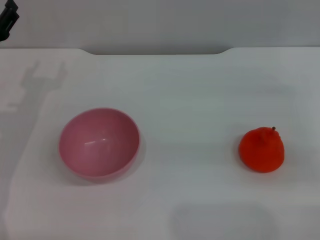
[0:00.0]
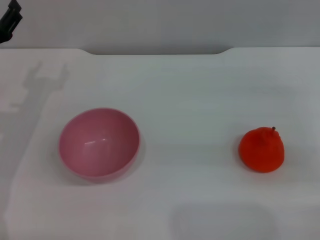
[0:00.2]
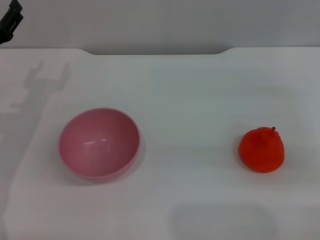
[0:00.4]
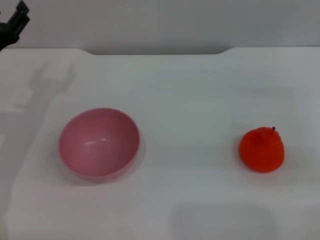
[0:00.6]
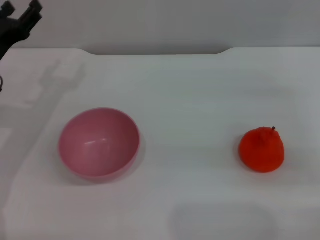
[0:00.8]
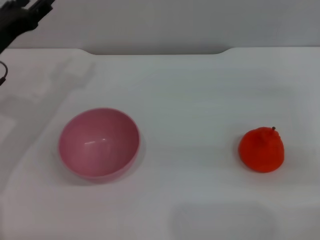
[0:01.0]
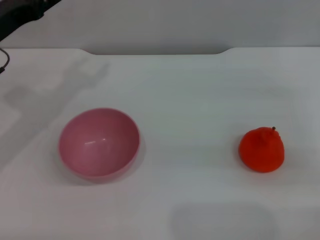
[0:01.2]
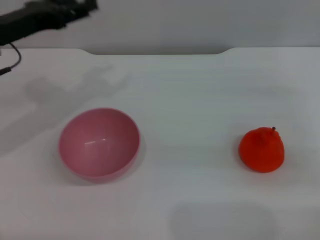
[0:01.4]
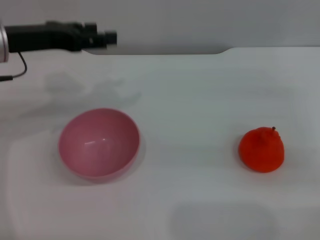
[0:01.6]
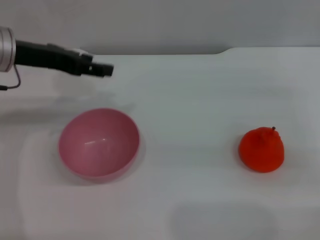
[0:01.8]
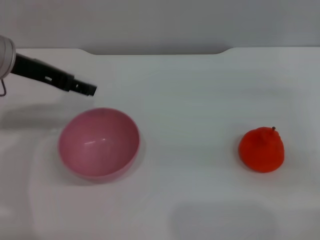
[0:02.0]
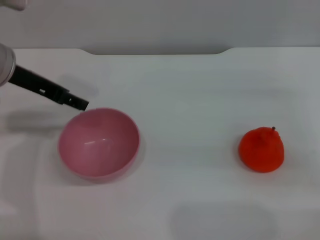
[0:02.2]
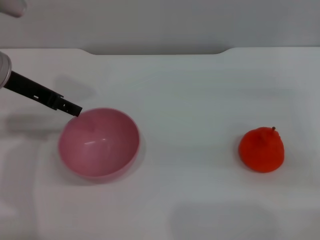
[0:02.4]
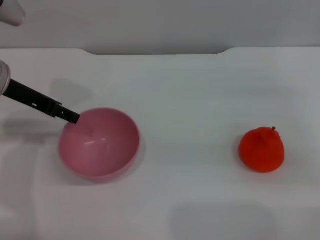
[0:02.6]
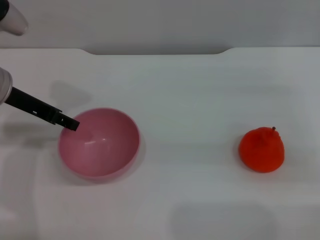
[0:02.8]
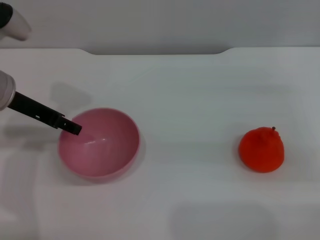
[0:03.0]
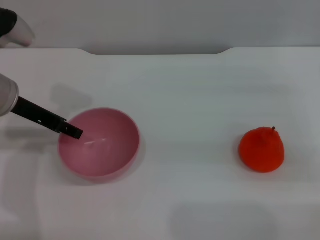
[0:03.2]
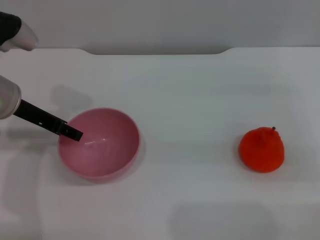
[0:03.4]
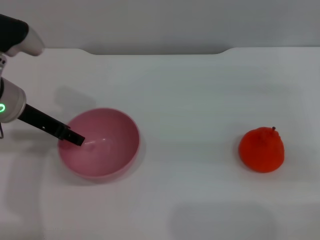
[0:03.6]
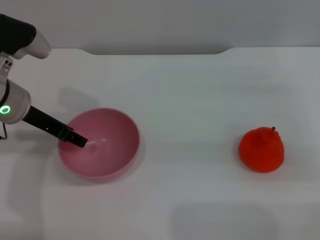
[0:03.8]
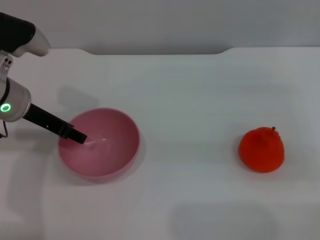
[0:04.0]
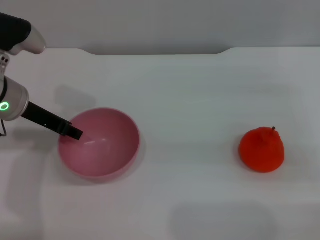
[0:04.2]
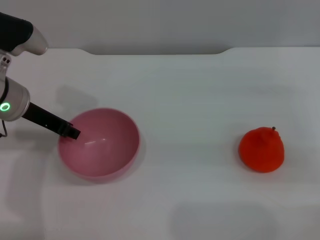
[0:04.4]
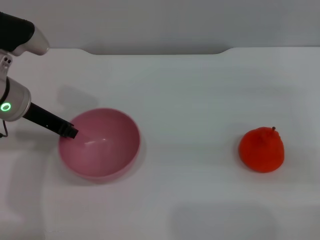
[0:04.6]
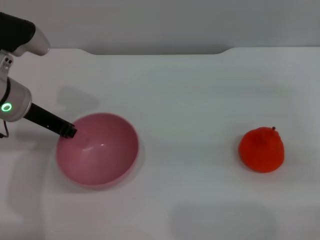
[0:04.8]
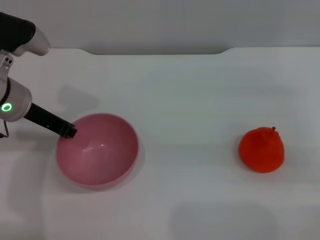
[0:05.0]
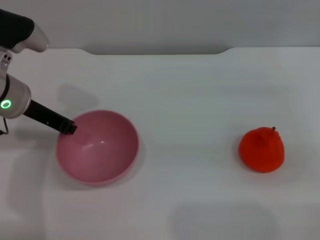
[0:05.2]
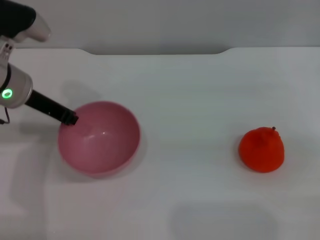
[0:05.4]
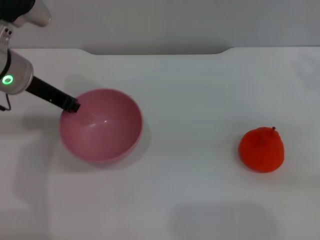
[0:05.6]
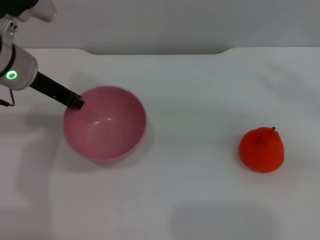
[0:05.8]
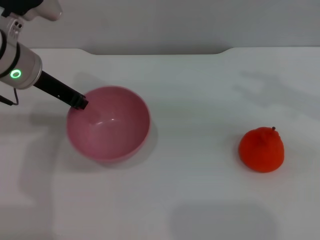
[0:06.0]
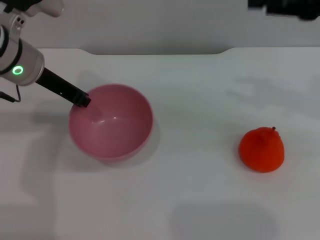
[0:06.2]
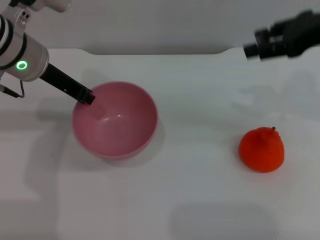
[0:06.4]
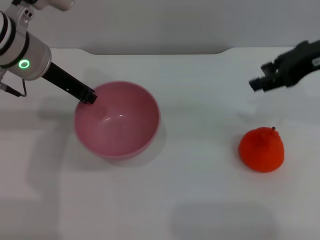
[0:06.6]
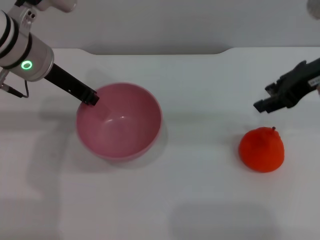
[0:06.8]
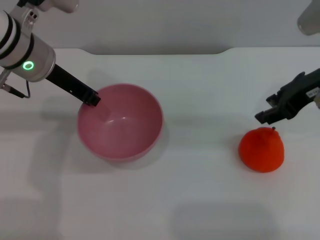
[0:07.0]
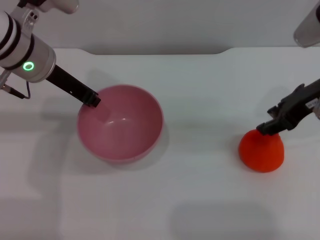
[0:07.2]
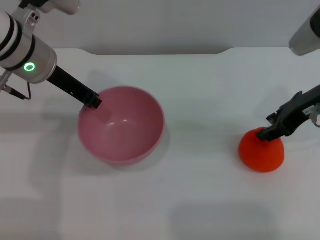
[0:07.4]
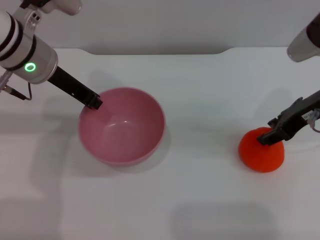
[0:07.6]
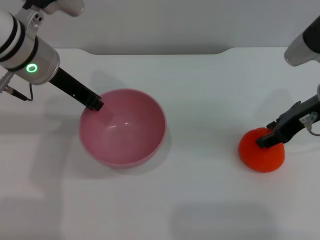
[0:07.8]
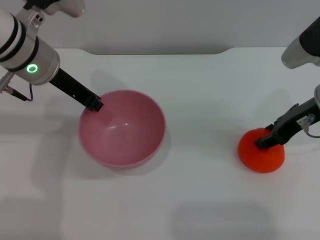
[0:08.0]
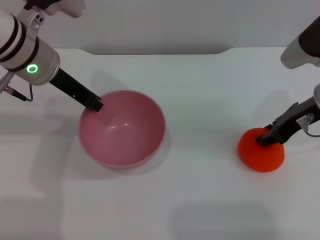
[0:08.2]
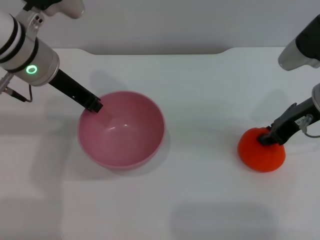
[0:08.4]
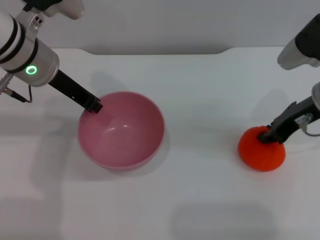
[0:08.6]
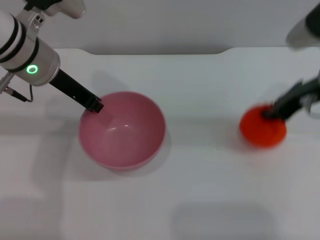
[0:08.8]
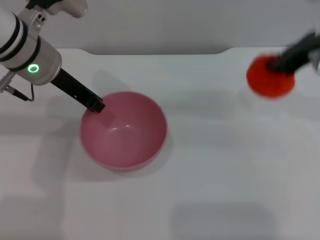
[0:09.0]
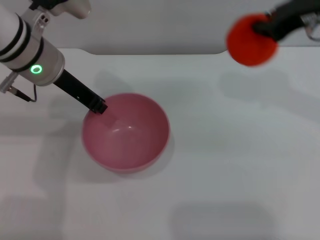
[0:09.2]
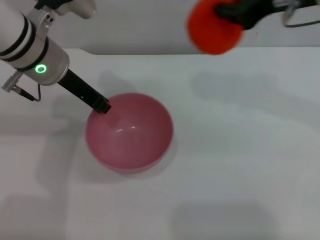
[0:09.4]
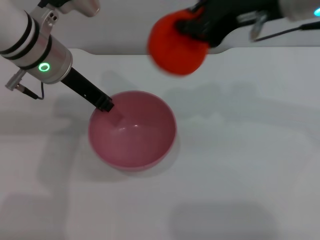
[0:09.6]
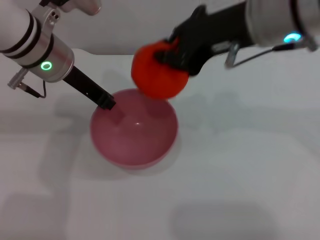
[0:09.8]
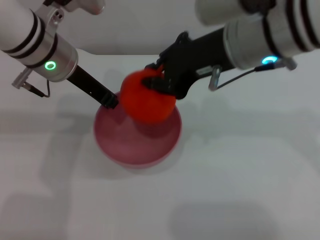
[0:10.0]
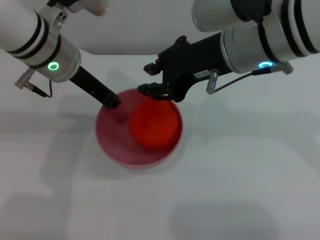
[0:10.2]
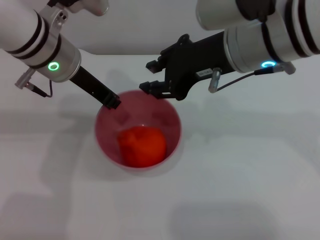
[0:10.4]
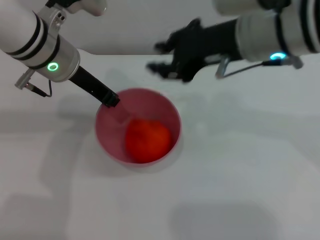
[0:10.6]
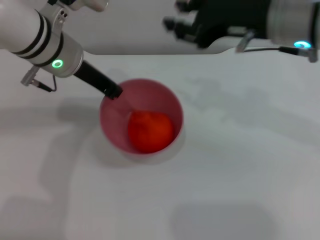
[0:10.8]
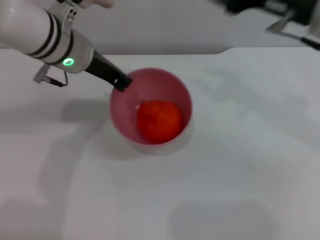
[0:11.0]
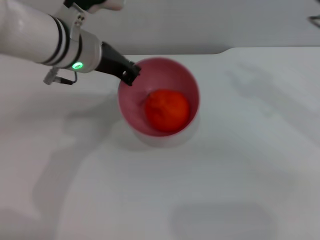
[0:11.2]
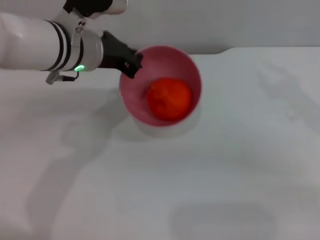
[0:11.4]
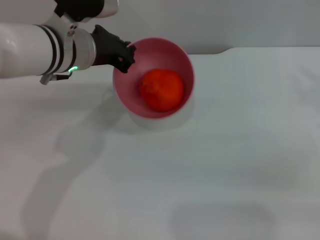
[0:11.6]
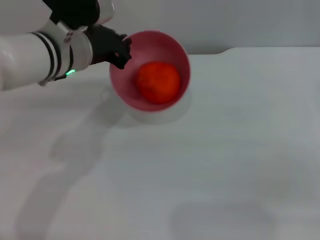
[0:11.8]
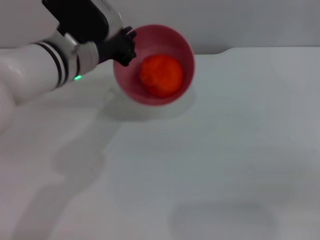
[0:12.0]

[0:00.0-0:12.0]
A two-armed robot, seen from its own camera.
Task of the whole recording: put the orange into the pink bowl and pour it out repeatedly.
Step, 0:00.0 to 0:06.6: Pick up the bowl with the left gripper.
Step, 0:06.8 to 0:08.8: Pick up the orange with the right gripper.
Step, 0:09.0 to 0:11.2: Place the orange into the bowl.
0:00.0 to 0:01.6: The left gripper shifts roughly 10 cm upward.
0:03.0 to 0:04.4: The grippers stay close to where they were, moving slightly.
0:04.4 to 0:06.0: The right gripper shifts approximately 15 cm upward, while the left gripper closes its fingers.
0:06.0 to 0:07.6: The right gripper travels downward and to the left by about 10 cm.
0:07.6 to 0:09.0: The right gripper shifts some 5 cm upward, and closes.
0:09.0 to 0:10.4: The right gripper moves to the left, some 15 cm.
0:10.4 to 0:12.0: The right gripper shifts approximately 25 cm to the right.

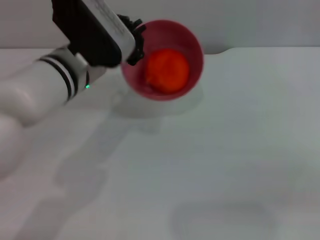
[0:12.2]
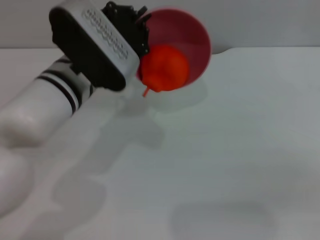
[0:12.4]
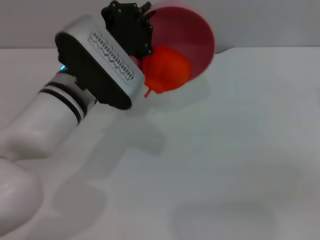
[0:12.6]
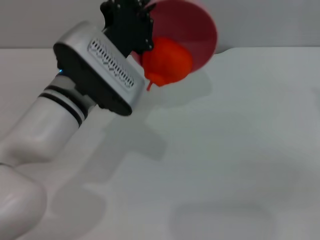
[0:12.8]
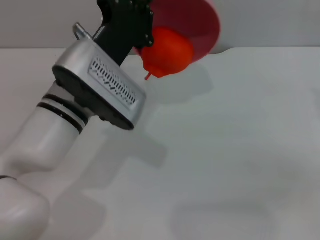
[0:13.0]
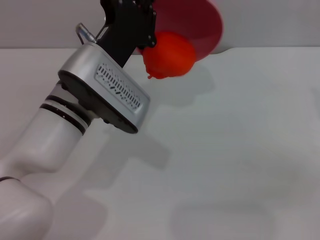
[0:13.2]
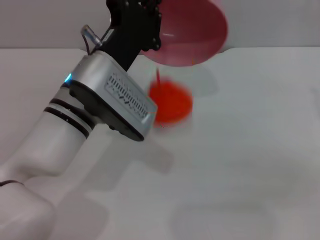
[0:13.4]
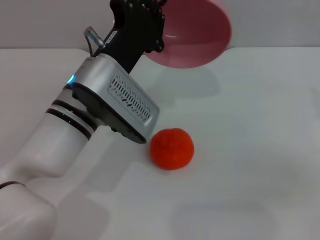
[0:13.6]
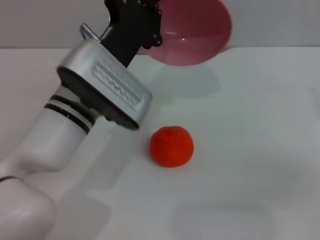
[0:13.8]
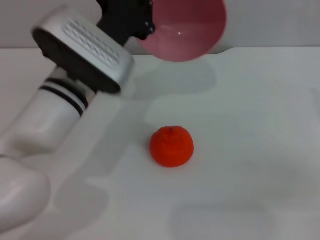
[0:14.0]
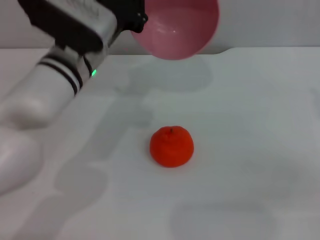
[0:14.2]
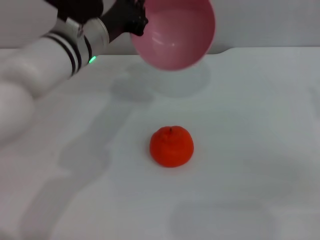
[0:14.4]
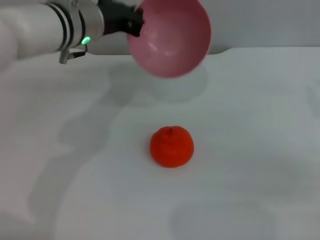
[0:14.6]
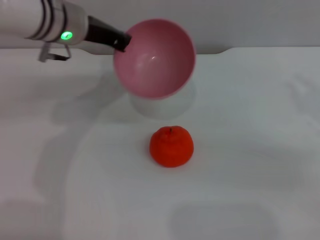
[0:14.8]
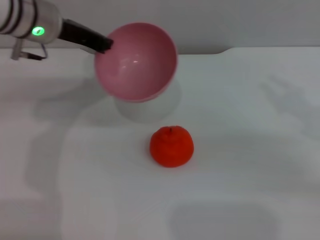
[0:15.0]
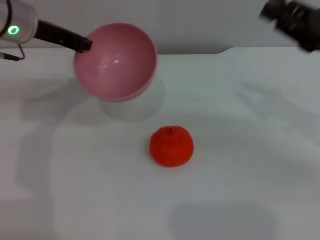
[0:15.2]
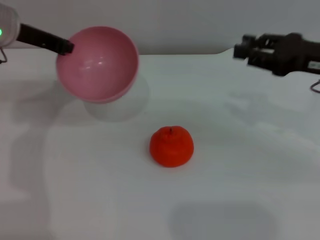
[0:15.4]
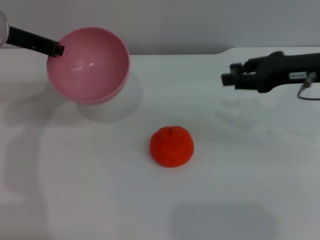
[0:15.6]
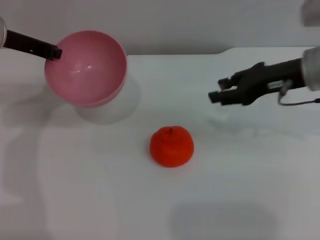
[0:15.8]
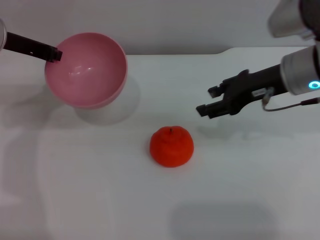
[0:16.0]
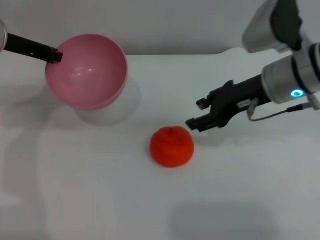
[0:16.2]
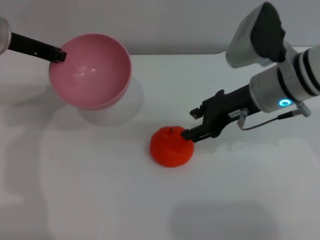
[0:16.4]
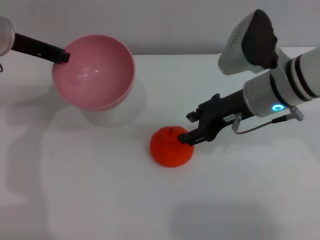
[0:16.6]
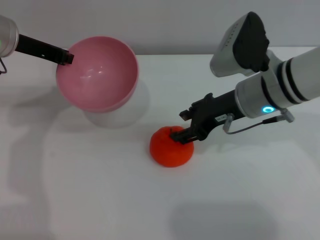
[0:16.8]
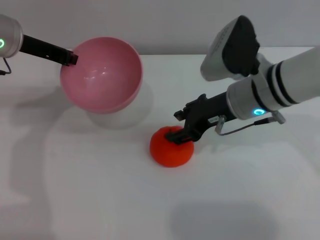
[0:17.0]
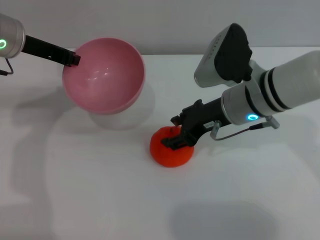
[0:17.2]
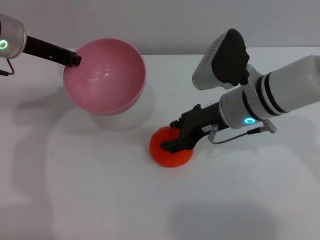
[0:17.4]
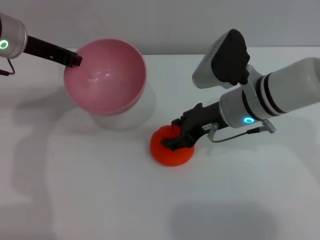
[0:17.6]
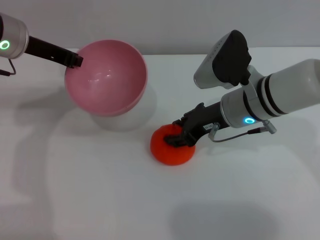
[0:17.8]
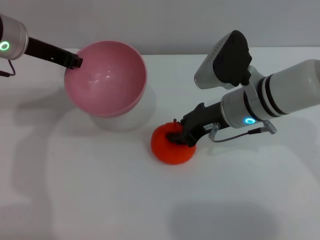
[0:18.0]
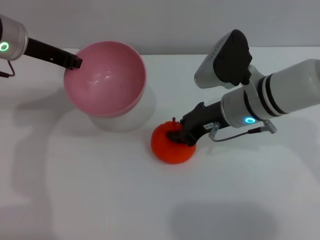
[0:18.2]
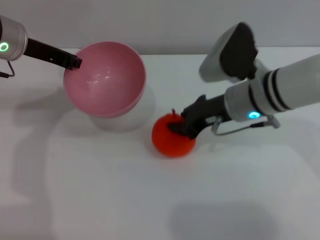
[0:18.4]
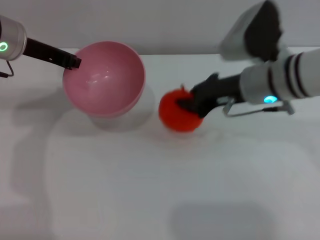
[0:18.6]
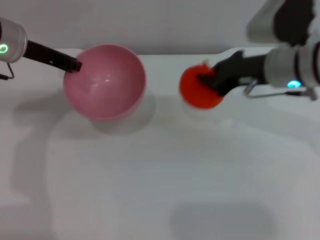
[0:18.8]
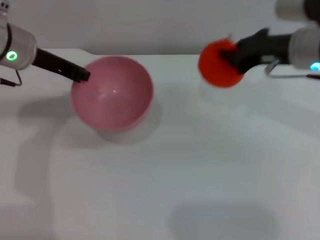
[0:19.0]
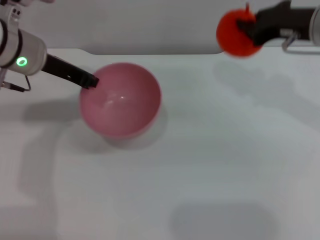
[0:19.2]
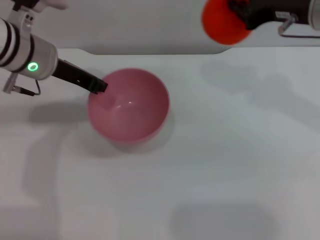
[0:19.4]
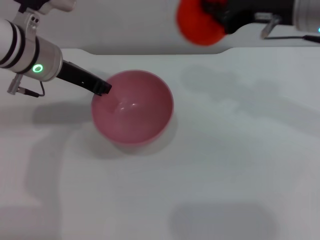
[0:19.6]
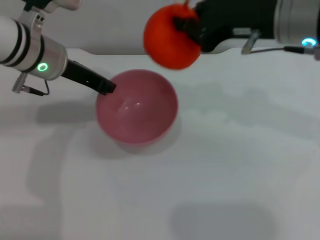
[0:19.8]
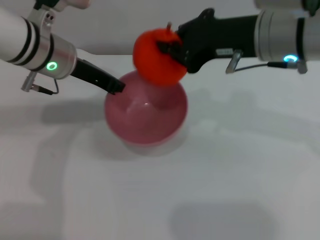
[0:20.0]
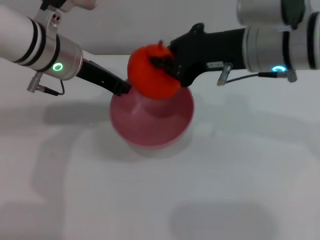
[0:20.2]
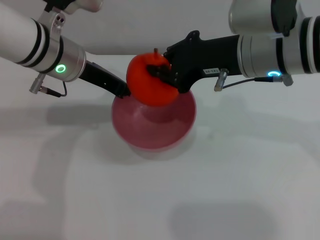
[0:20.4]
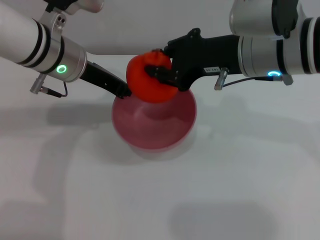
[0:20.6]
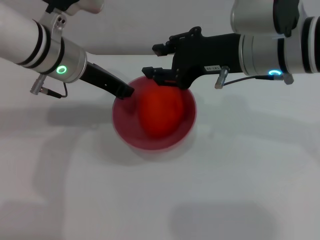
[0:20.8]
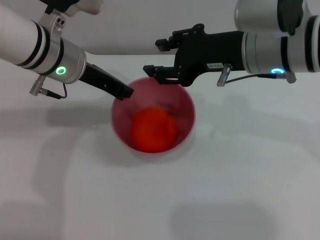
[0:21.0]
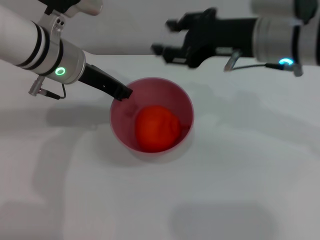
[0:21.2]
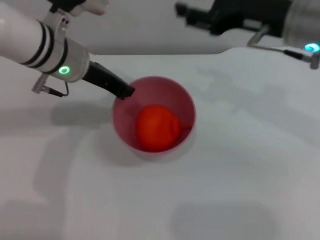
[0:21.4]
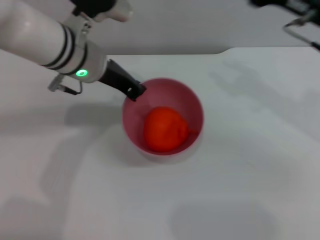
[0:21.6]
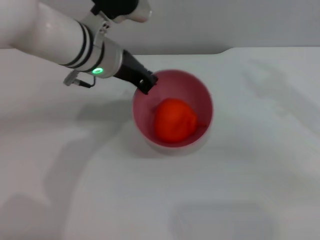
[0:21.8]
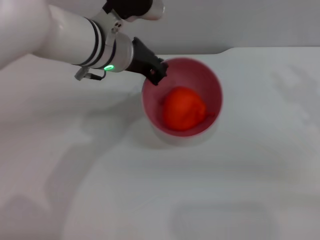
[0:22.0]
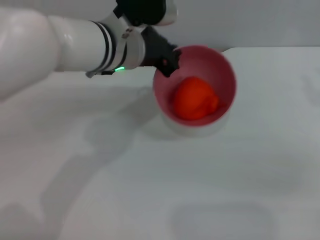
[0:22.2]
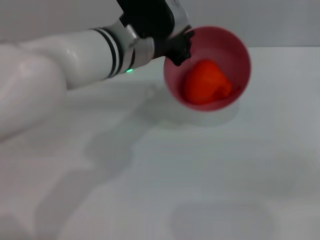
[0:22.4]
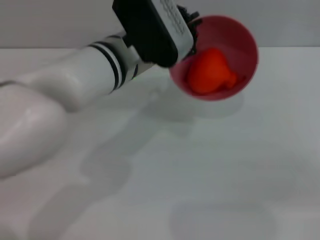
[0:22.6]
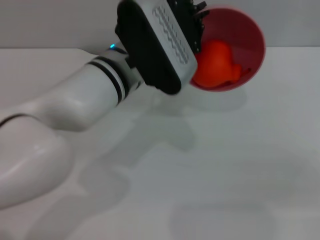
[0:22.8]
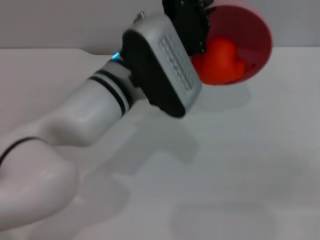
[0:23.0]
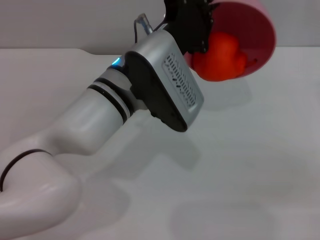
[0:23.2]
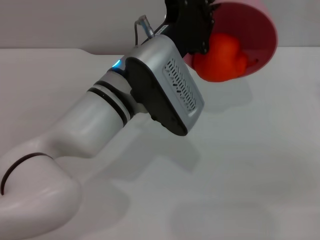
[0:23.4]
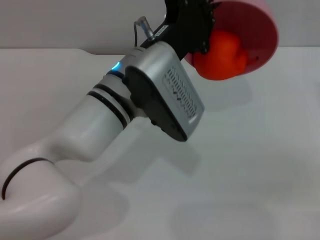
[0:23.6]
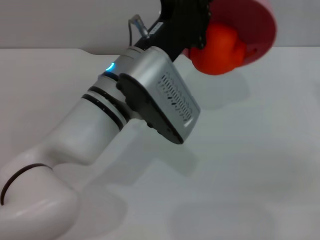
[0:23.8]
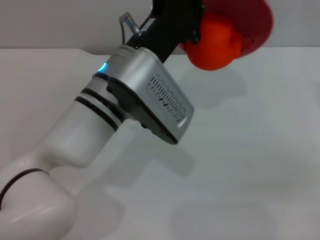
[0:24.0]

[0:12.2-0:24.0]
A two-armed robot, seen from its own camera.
Task of the whole recording: put the orange into the pink bowl and pour it out repeatedly.
Step, 0:12.2 to 0:14.0: Pour the orange out of the bowl.
Step, 0:14.4 to 0:19.0: Pick up the orange with the right gripper.
Step, 0:19.2 to 0:21.2: Place the orange into the bowl.
0:12.2 to 0:13.6: The left gripper changes place by some 5 cm.
0:13.6 to 0:15.2: The left gripper goes approximately 20 cm forward, to the left and upward. Meanwhile the right gripper heads forward, covering approximately 5 cm.
0:15.2 to 0:16.6: The right gripper travels to the left by some 15 cm, and opens up.
0:16.6 to 0:18.2: The right gripper closes its fingers.
0:18.2 to 0:19.6: The right gripper is displaced upward by some 15 cm, and closes its fingers.
0:19.6 to 0:21.0: The right gripper ends up about 5 cm from where it was, and opens its fingers.
0:21.0 to 0:22.6: The left gripper is displaced to the right by roughly 10 cm. The right gripper is displaced to the right by some 20 cm.
0:22.6 to 0:24.0: The left gripper shifts by approximately 5 cm.
